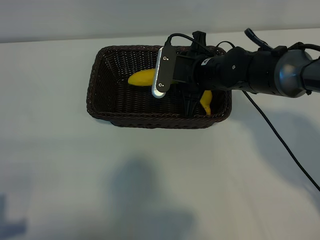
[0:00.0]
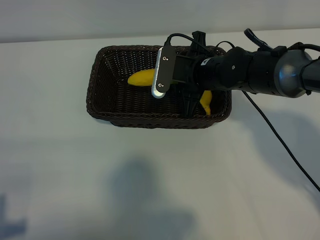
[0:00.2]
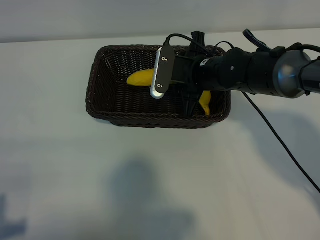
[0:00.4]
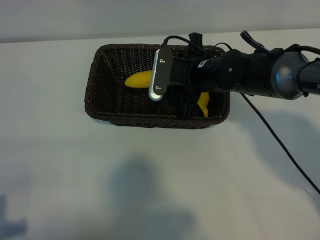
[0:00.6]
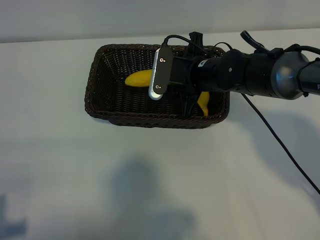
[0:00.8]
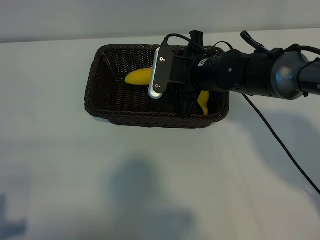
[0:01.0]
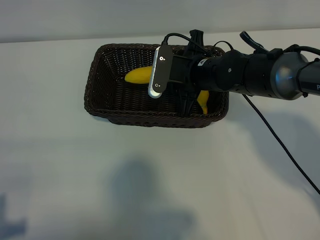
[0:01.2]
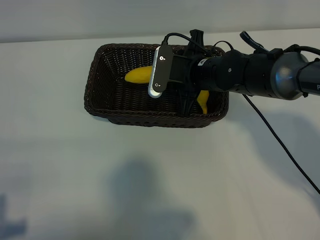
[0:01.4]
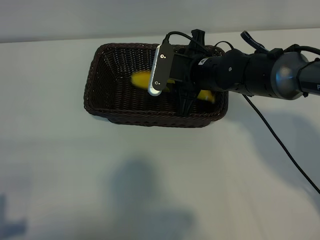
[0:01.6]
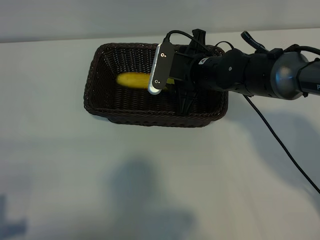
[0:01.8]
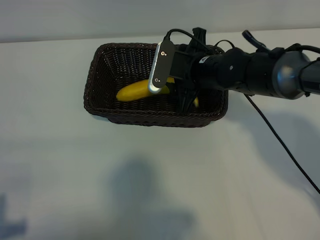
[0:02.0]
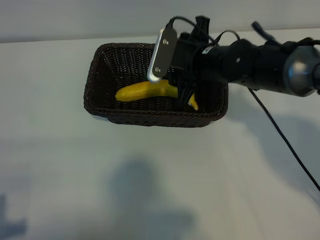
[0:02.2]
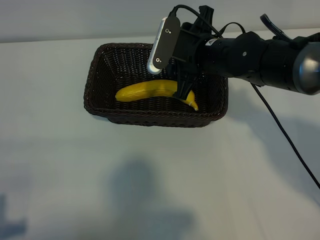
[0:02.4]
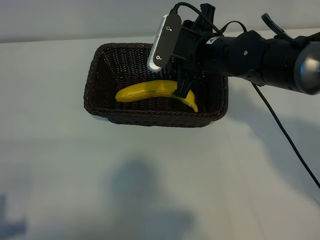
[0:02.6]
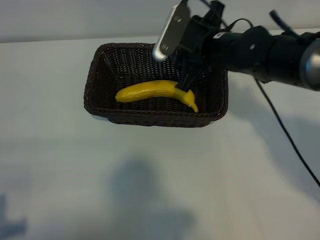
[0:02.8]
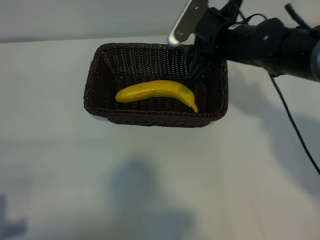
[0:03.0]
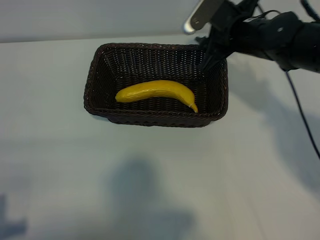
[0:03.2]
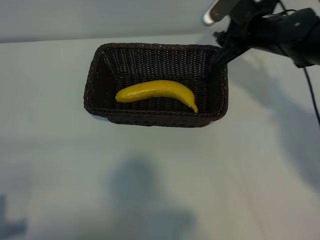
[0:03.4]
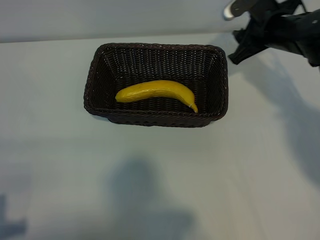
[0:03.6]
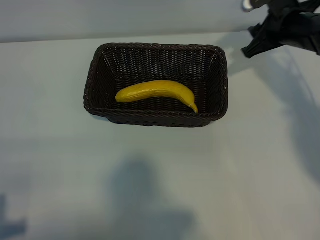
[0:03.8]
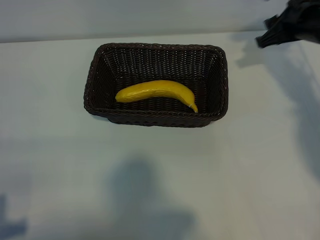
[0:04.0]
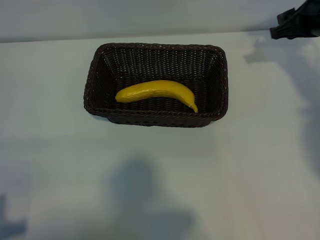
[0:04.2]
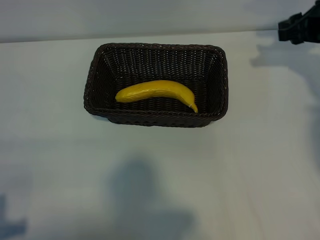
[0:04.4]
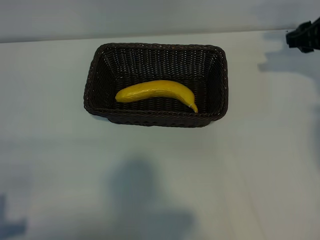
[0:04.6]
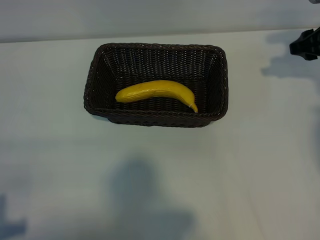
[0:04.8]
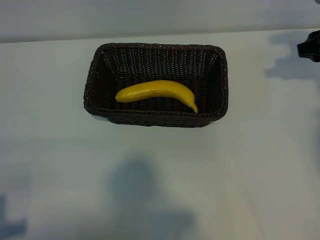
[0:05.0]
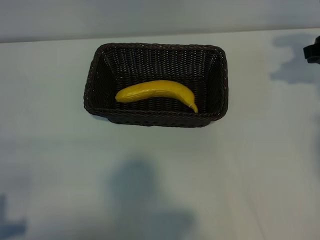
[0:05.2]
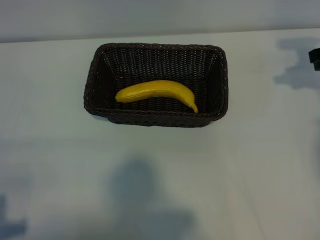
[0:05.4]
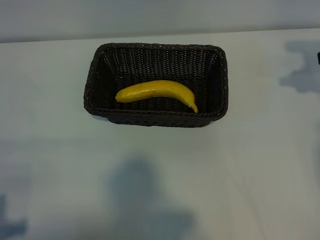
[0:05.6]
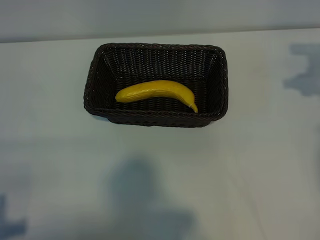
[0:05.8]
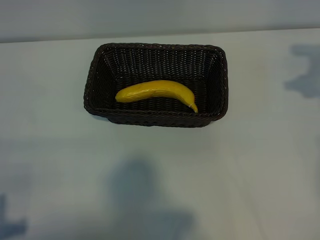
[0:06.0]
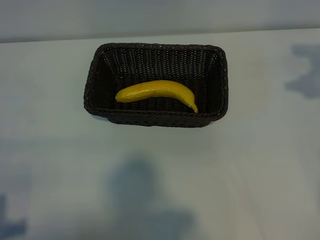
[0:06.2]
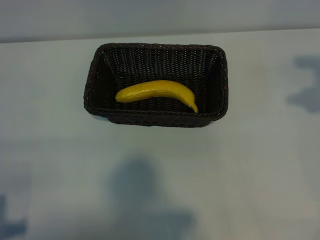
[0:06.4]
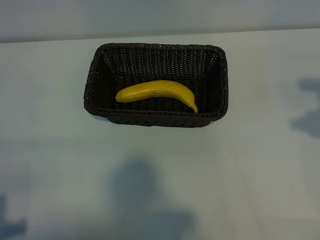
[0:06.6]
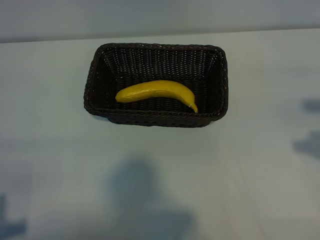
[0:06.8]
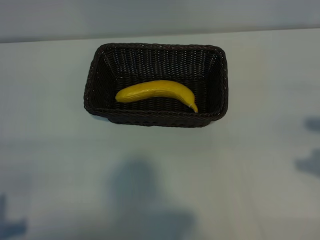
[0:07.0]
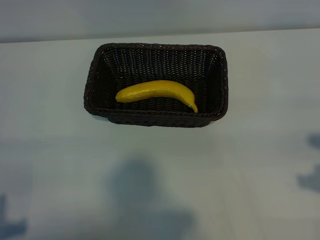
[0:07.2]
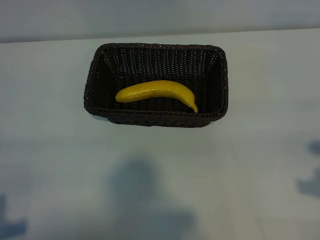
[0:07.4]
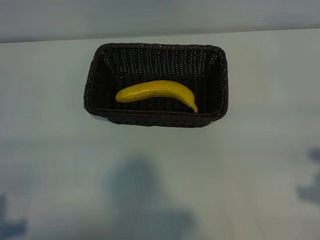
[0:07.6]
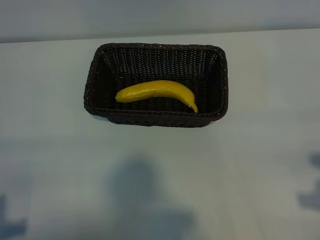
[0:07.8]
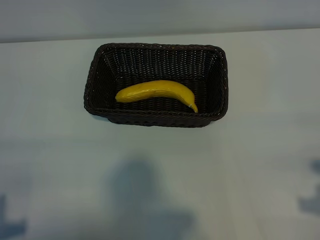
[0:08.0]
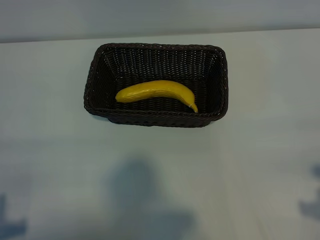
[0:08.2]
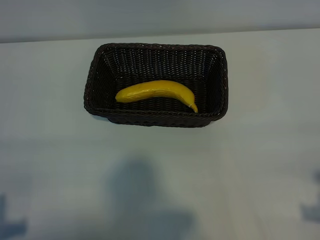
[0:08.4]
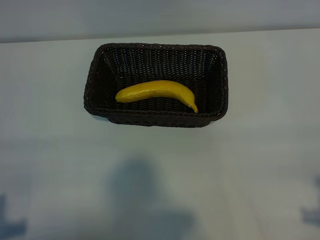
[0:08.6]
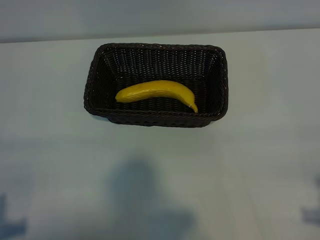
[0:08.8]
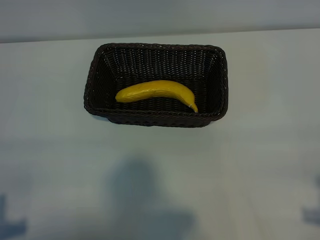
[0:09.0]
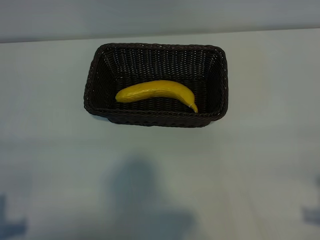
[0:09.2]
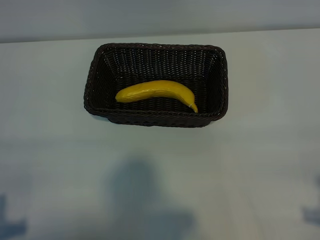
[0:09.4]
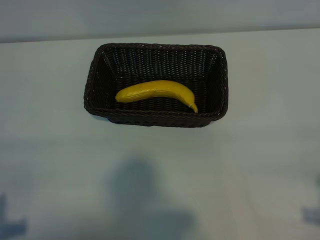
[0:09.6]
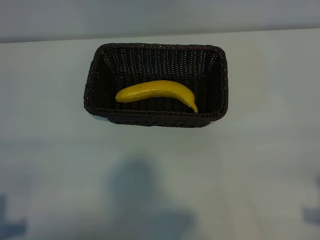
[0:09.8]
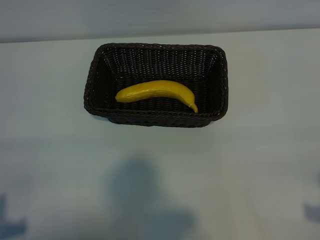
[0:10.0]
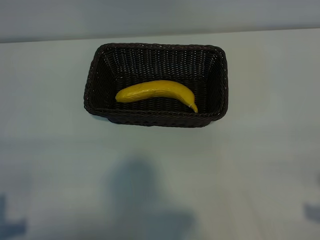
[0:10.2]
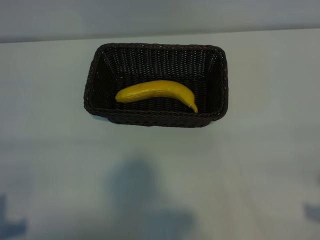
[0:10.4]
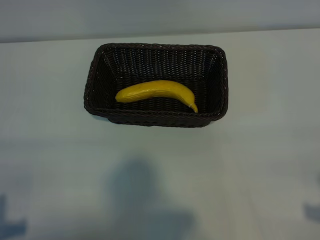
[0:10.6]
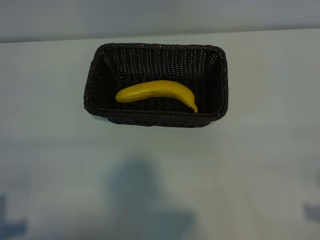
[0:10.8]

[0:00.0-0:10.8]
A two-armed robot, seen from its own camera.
Task of the whole recording: pick up the banana and put it into the basket.
Step, 0:00.0 to 0:02.4: Place the banana in the basket with right gripper.
